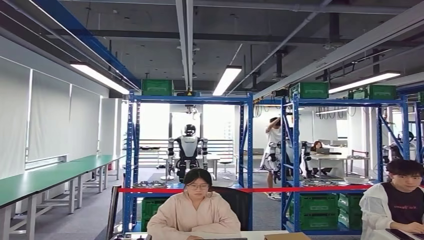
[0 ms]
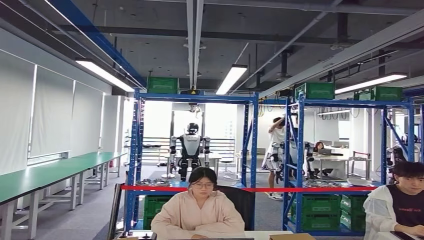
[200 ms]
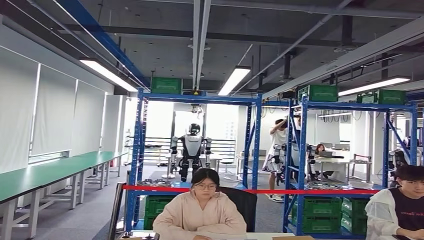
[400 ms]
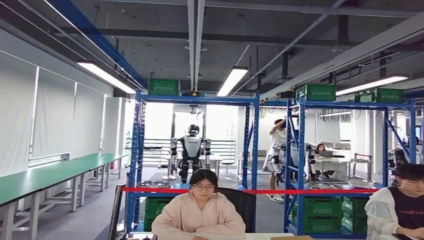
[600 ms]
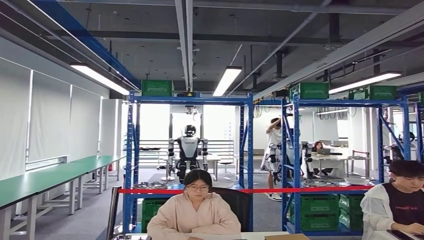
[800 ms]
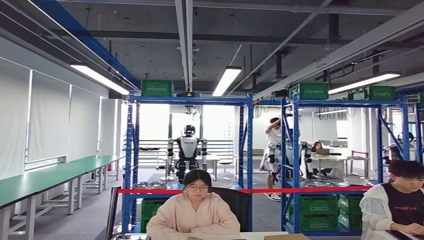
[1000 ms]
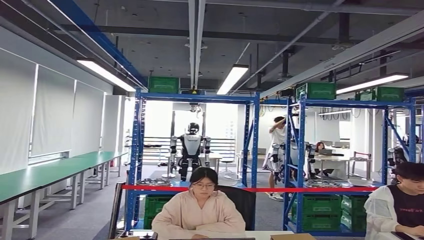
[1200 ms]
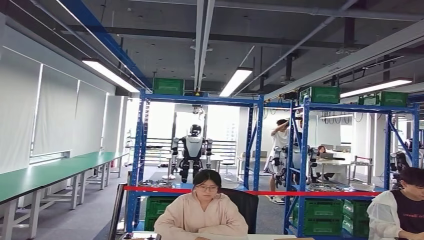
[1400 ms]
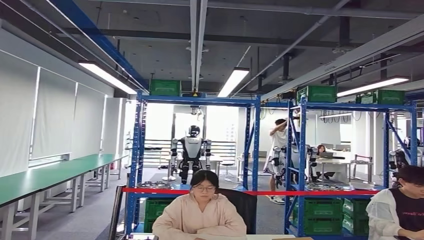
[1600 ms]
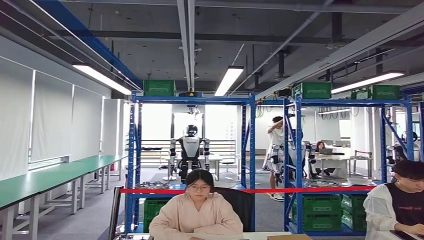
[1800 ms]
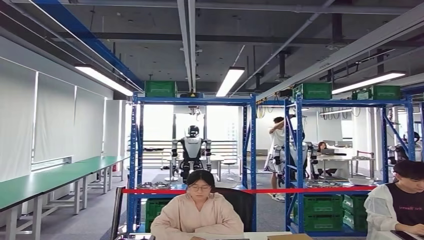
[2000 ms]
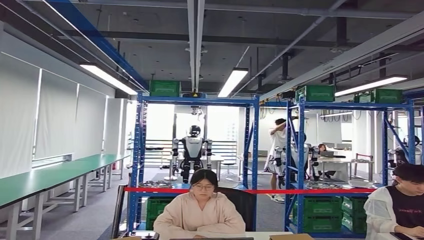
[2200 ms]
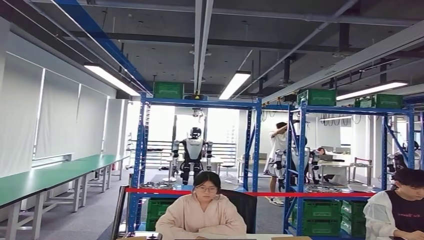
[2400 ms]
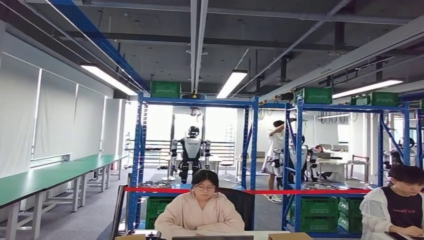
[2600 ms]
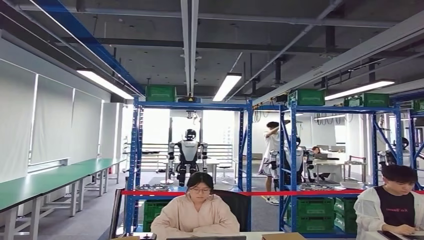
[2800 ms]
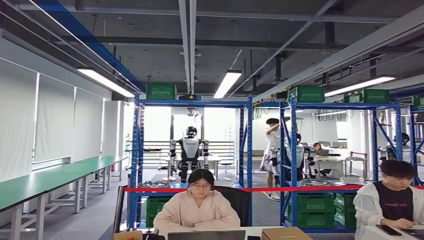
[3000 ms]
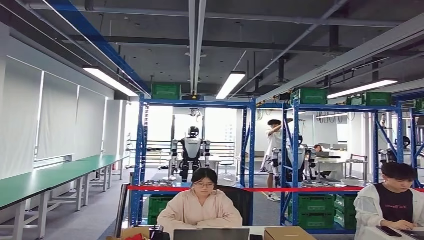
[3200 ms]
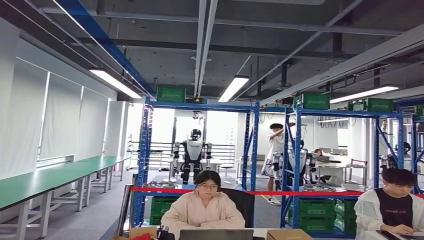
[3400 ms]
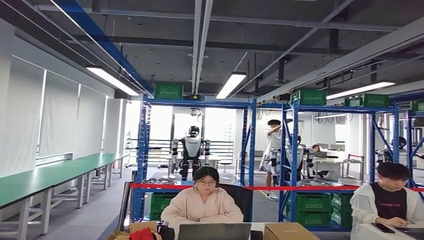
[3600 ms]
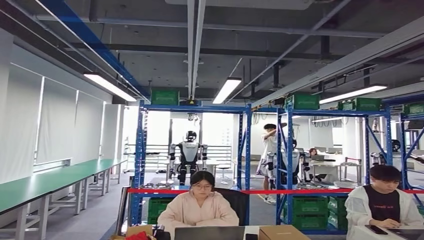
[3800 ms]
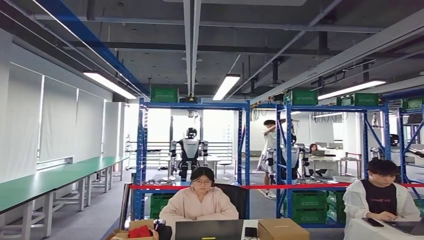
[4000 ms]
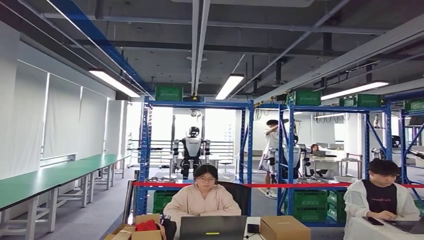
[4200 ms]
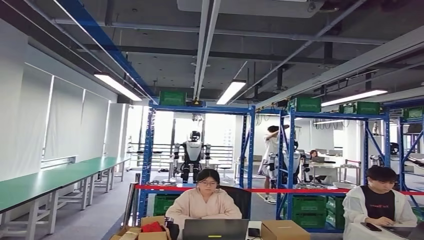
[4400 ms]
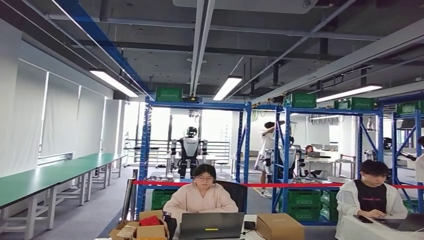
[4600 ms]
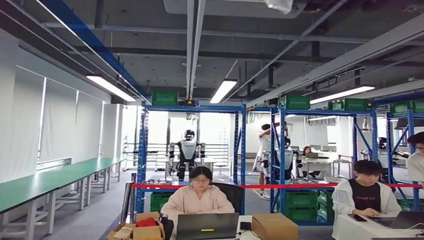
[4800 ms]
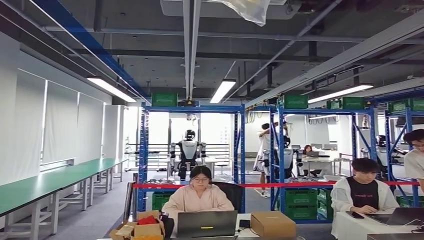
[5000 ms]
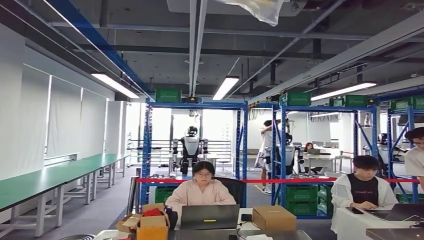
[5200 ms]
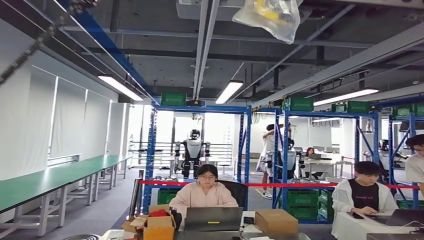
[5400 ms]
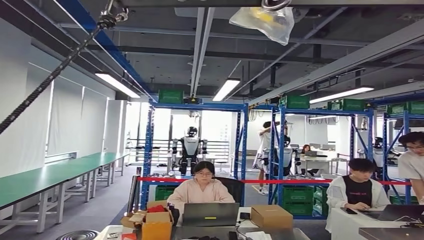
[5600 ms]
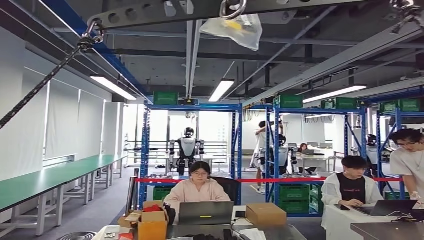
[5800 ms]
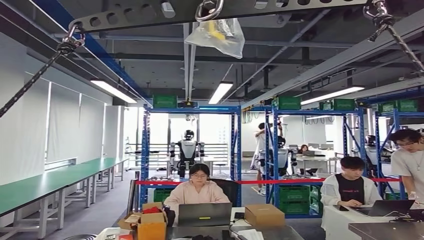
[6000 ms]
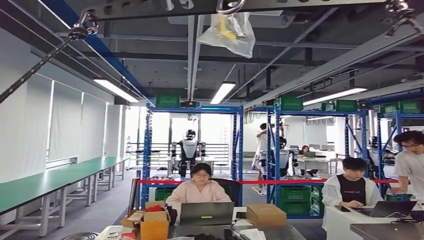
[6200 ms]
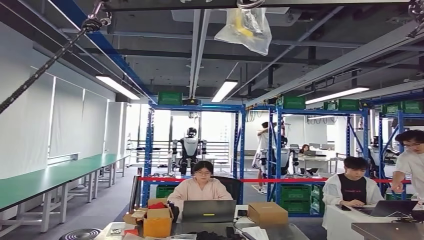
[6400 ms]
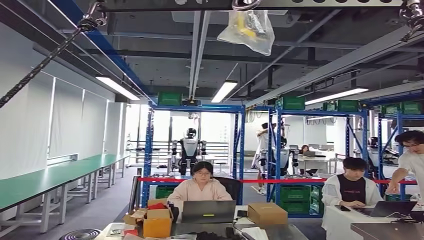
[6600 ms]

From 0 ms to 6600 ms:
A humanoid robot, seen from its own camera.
Step, from 0 ms to 2400 ms: Insert the small component into the corresponding slot on the workbench.
Step, from 2600 ms to 6400 ms: Return to the initial position at the workbench.

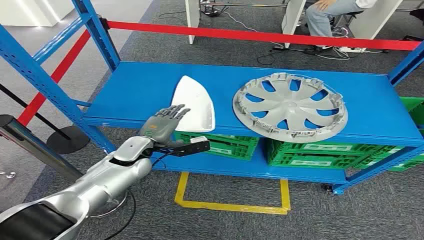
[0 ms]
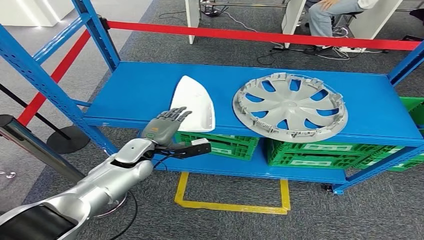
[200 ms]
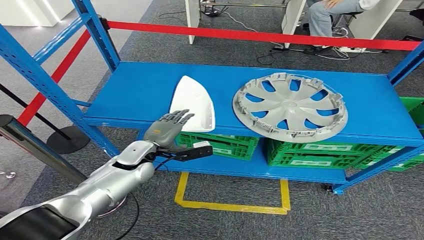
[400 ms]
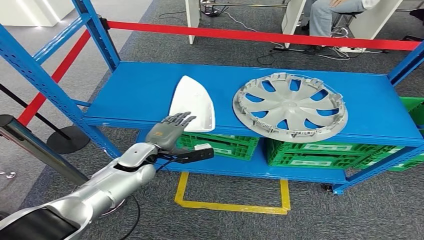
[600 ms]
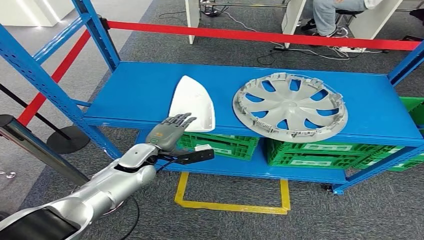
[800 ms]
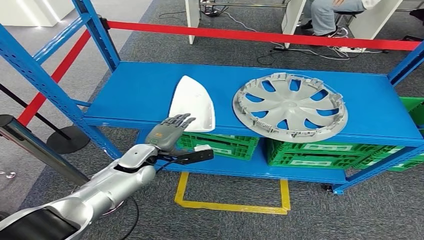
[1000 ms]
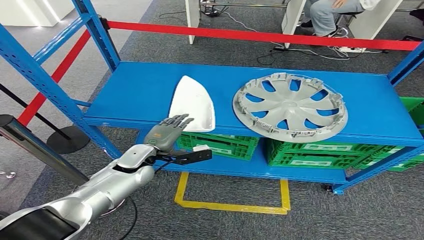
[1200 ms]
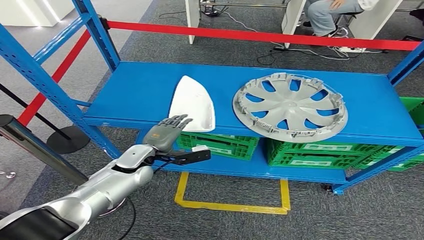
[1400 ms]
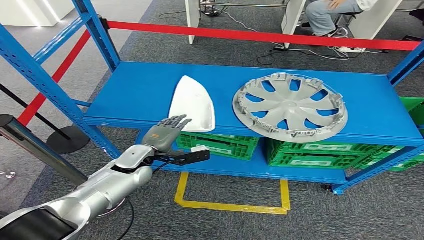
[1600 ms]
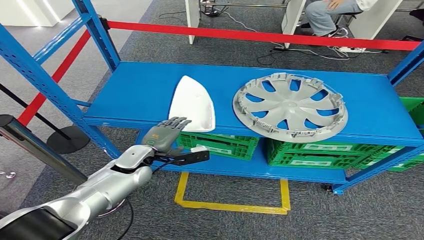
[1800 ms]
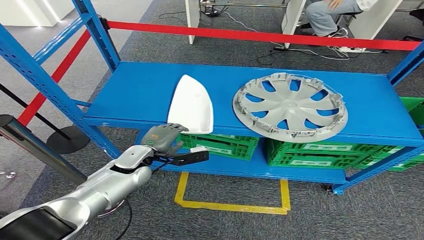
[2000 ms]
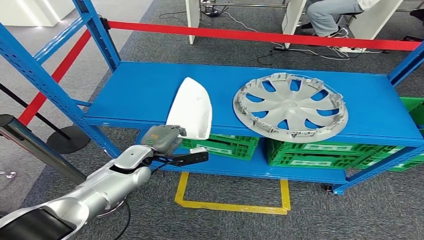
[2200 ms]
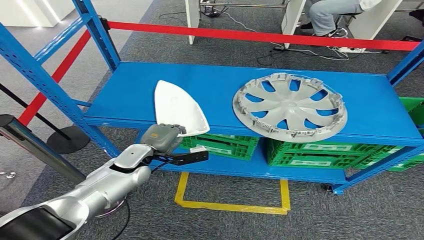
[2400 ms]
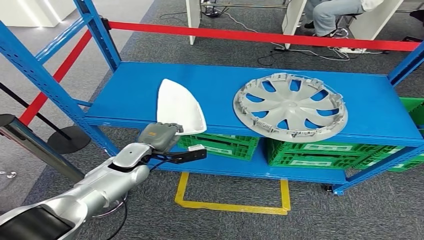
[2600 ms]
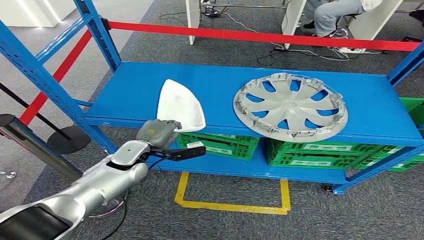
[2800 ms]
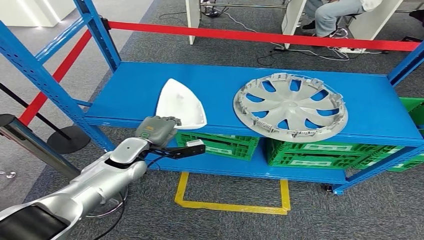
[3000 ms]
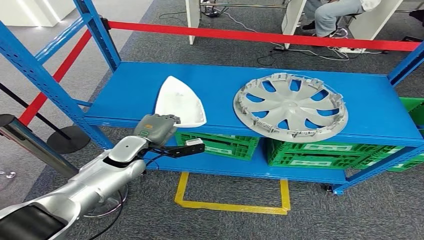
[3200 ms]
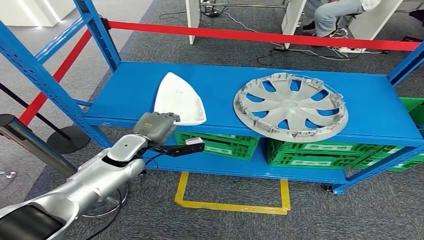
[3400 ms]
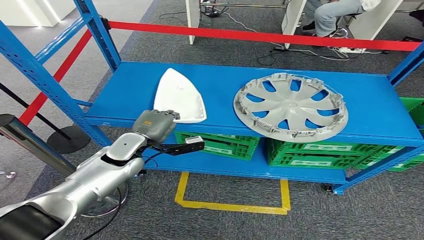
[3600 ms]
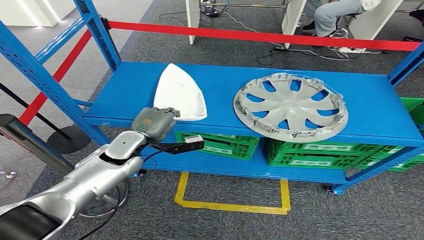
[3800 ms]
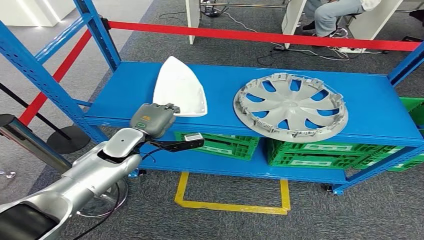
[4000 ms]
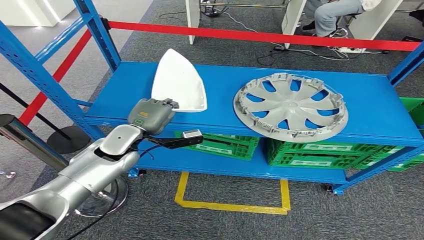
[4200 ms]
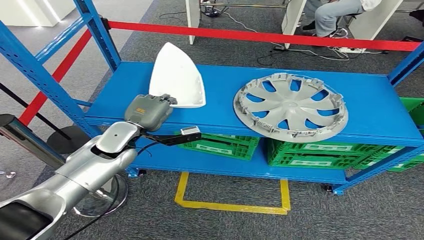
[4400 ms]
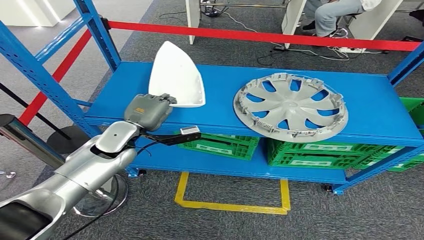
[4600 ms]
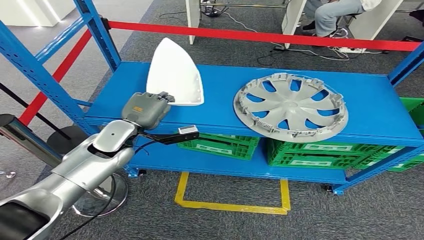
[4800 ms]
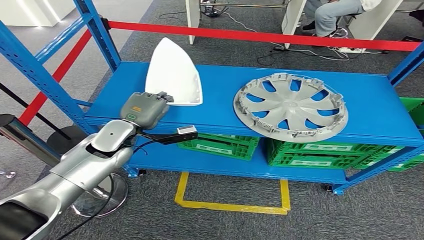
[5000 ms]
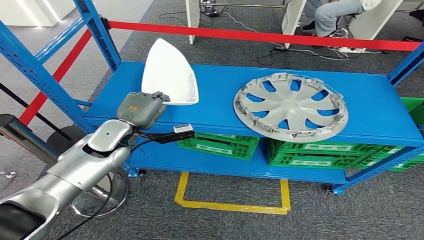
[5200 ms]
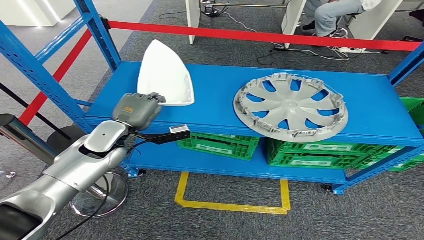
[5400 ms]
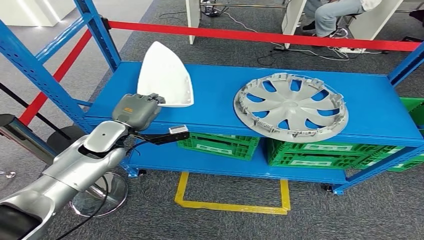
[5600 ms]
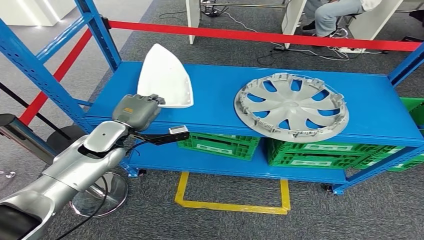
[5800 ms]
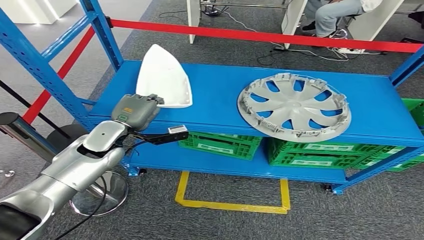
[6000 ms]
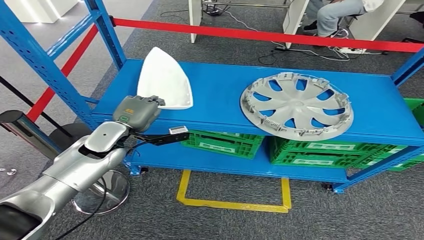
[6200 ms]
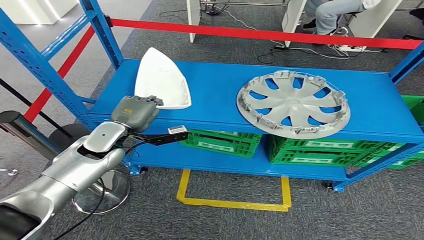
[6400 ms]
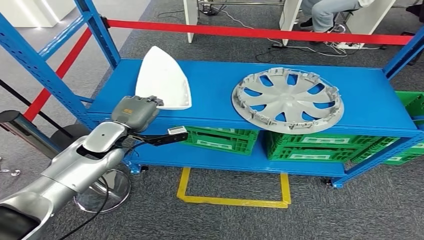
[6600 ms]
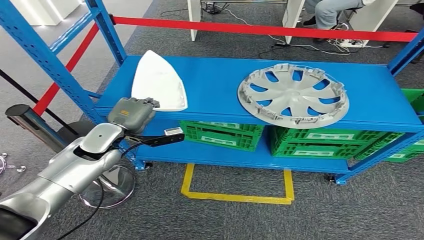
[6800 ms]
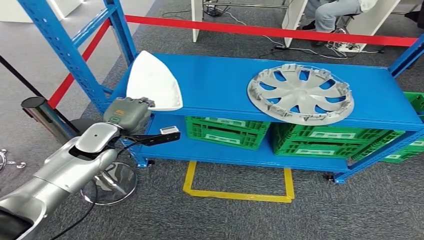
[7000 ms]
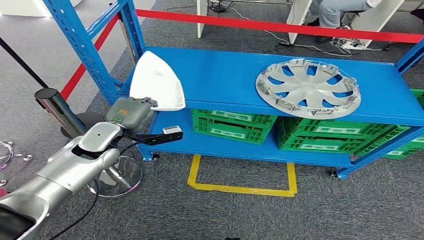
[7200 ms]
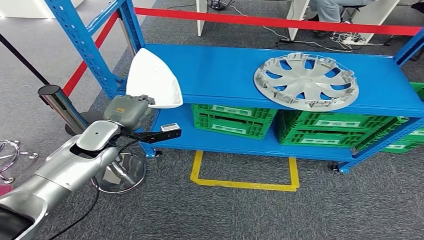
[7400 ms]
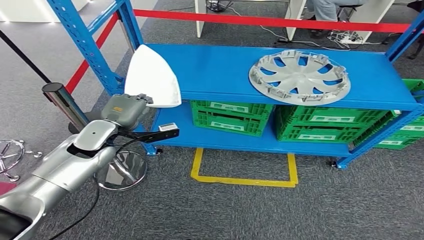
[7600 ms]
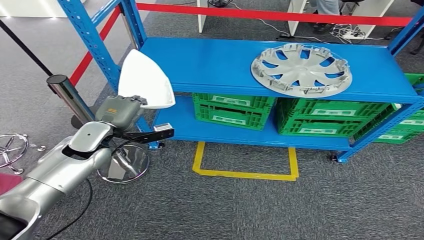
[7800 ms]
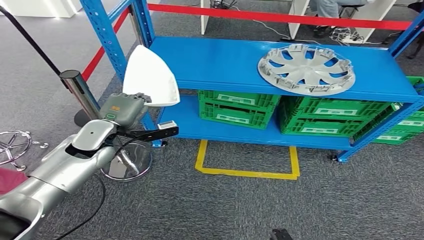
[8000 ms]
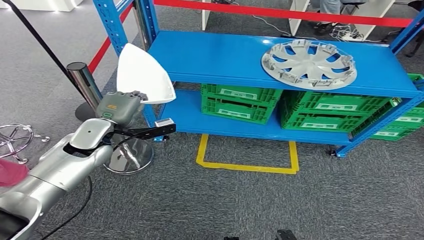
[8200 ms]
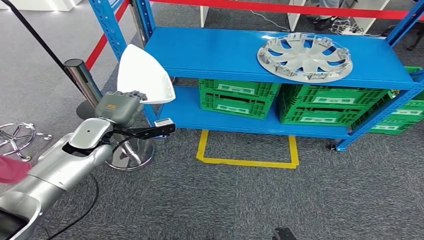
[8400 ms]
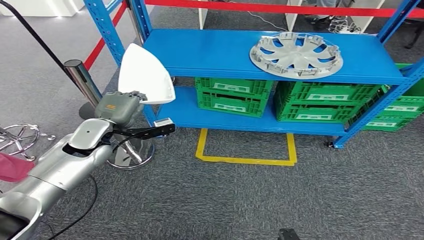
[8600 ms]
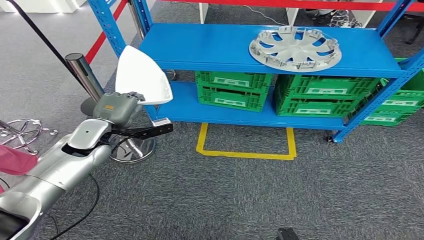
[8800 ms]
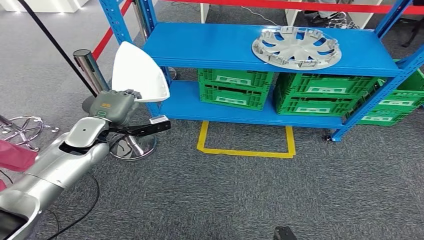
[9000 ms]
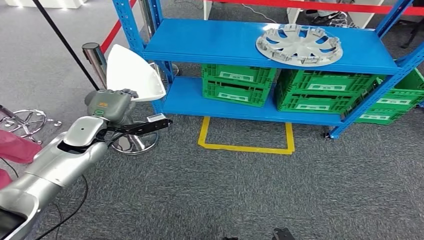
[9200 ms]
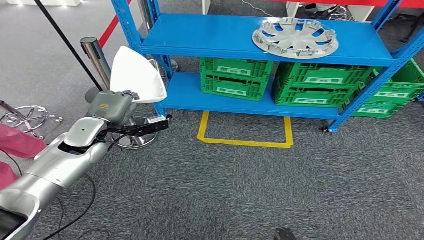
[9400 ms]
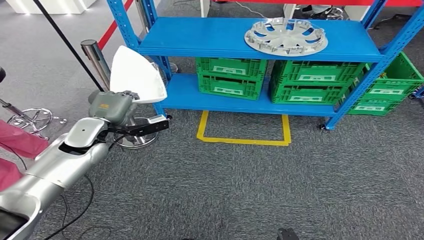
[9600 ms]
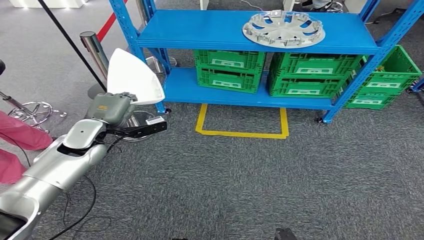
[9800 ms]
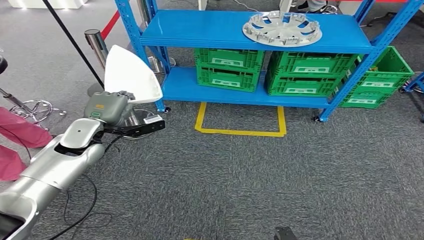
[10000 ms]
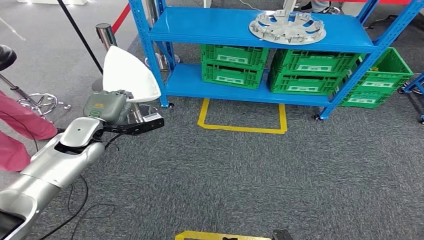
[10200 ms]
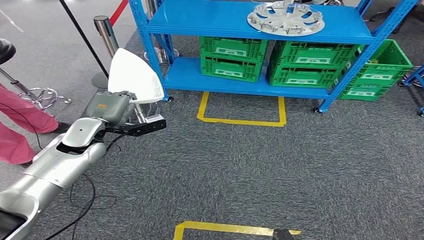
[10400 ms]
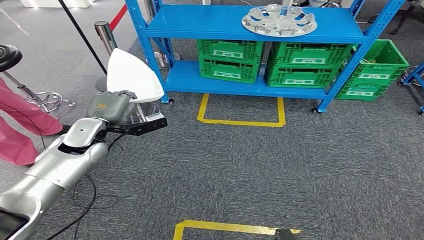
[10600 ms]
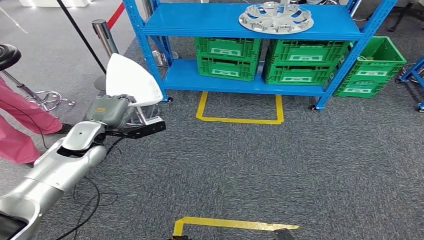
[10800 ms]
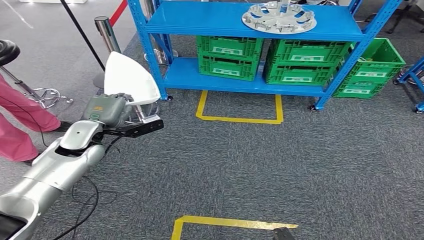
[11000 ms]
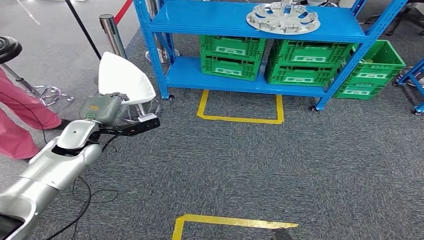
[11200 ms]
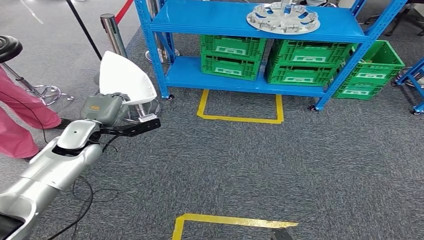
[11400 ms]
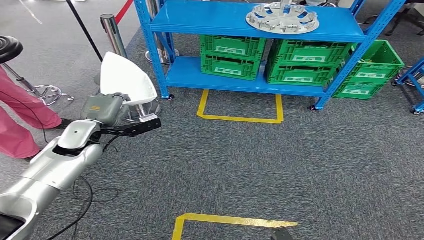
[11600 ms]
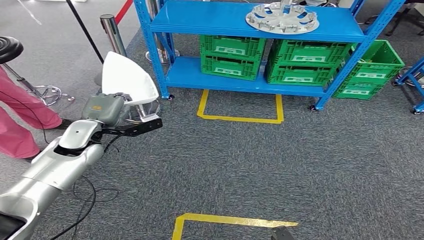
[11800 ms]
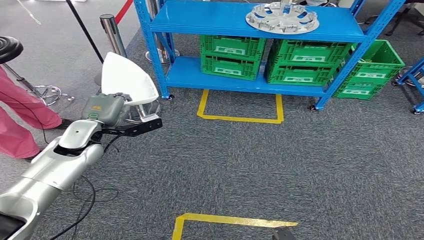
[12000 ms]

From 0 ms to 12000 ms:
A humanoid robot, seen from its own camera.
Step, from 0 ms to 8400 ms: Pick up the small component from the shelf.
From 1600 ms to 3000 ms: The hands move only a little.
From 3000 ms to 4400 ms: The left hand goes some 5 cm upward.
From 10400 ms to 12000 ms: The two hands keep their place.
